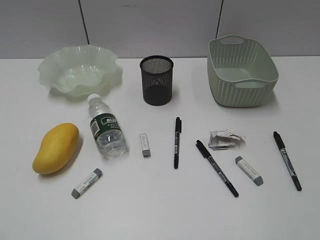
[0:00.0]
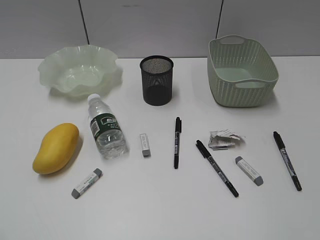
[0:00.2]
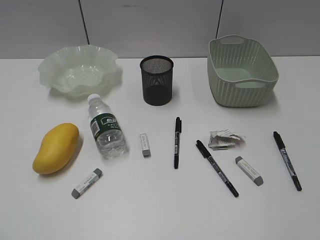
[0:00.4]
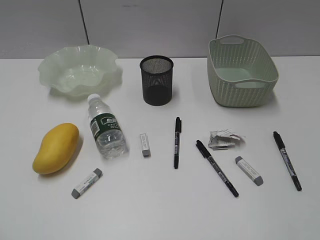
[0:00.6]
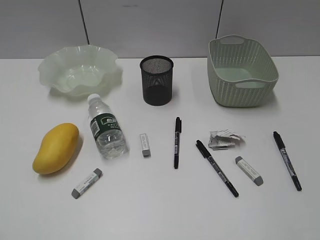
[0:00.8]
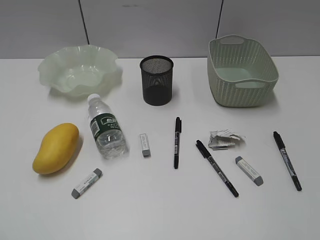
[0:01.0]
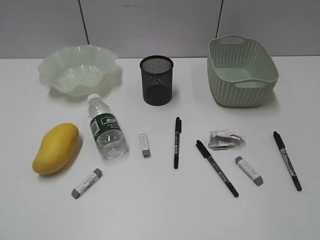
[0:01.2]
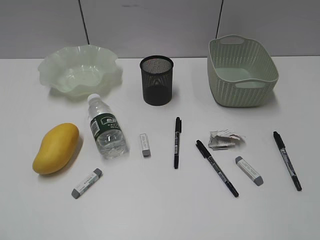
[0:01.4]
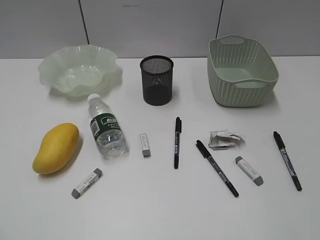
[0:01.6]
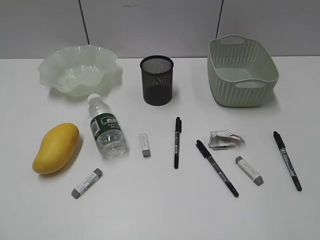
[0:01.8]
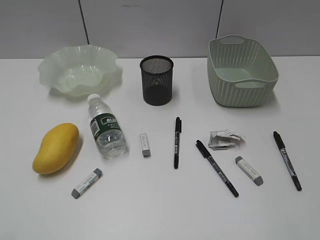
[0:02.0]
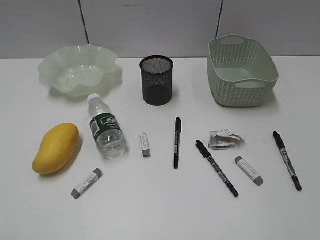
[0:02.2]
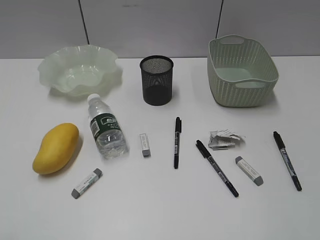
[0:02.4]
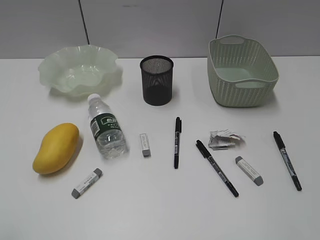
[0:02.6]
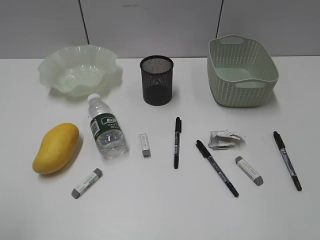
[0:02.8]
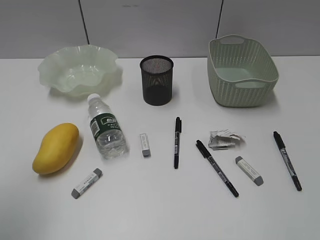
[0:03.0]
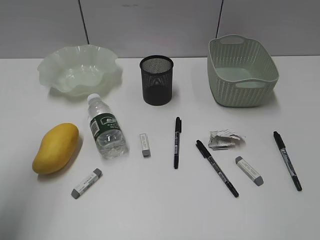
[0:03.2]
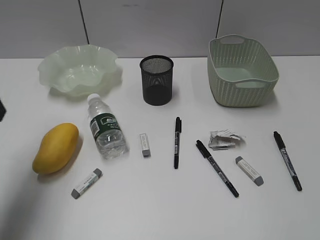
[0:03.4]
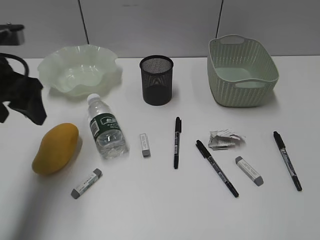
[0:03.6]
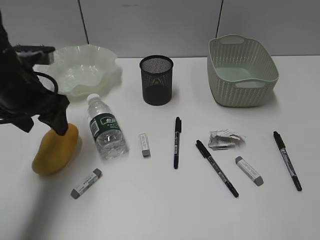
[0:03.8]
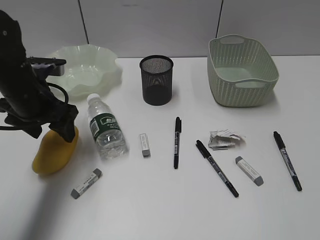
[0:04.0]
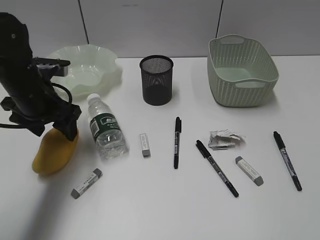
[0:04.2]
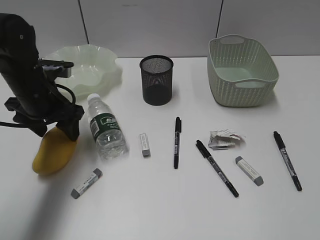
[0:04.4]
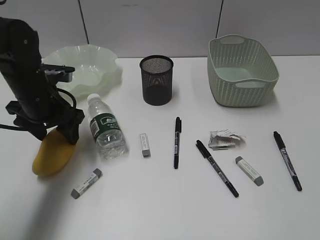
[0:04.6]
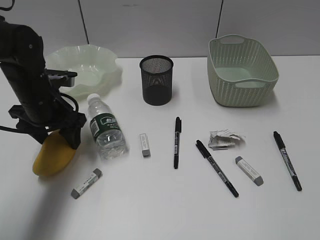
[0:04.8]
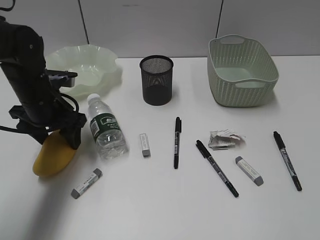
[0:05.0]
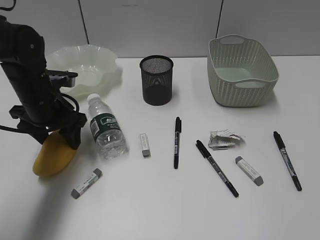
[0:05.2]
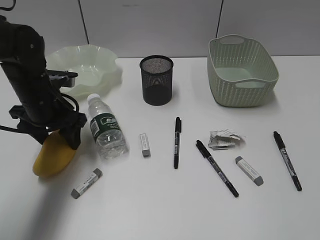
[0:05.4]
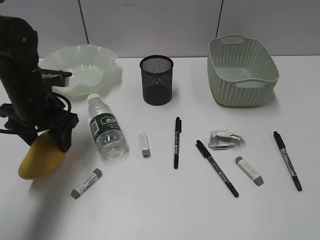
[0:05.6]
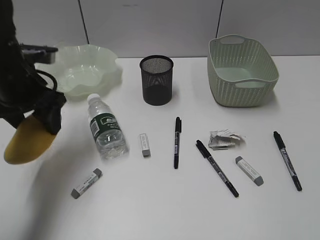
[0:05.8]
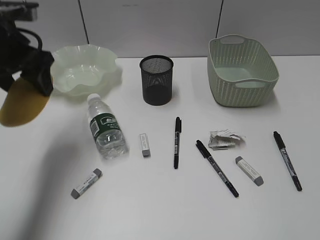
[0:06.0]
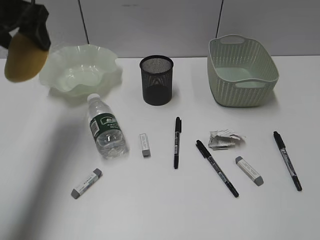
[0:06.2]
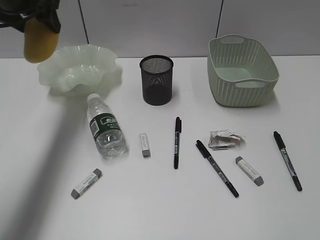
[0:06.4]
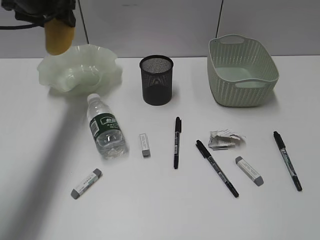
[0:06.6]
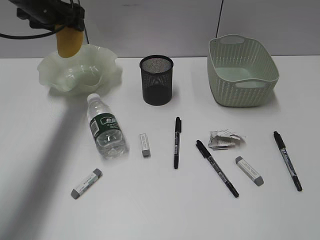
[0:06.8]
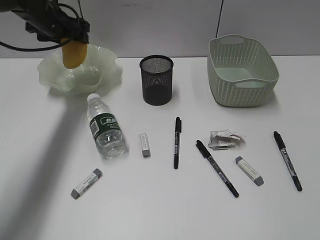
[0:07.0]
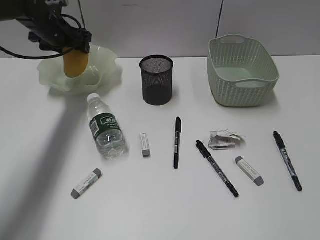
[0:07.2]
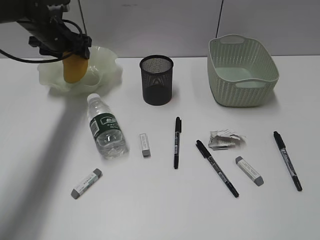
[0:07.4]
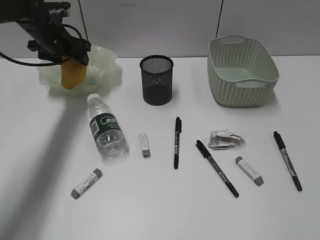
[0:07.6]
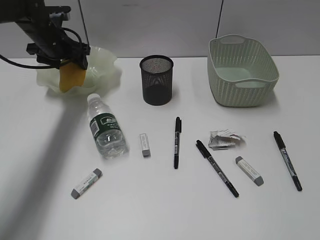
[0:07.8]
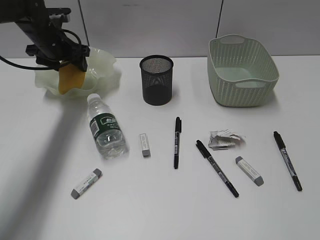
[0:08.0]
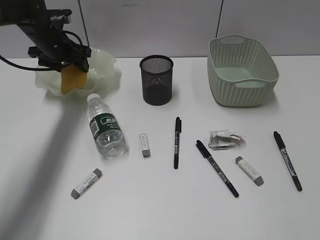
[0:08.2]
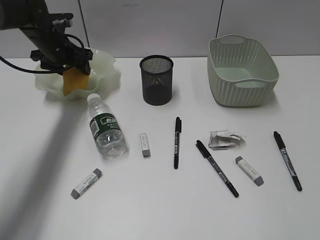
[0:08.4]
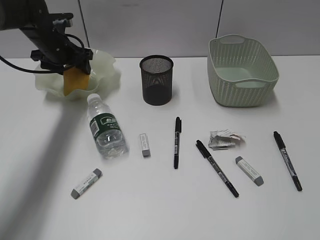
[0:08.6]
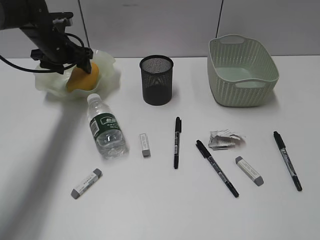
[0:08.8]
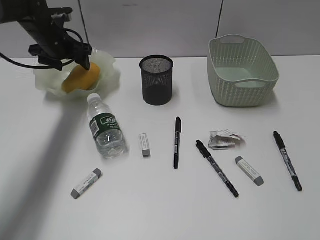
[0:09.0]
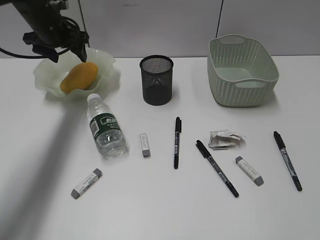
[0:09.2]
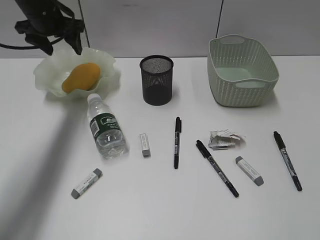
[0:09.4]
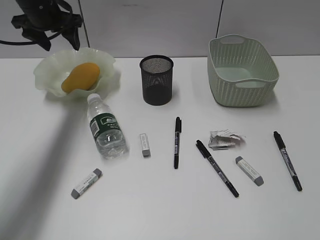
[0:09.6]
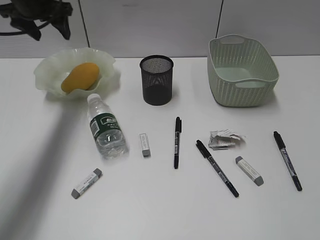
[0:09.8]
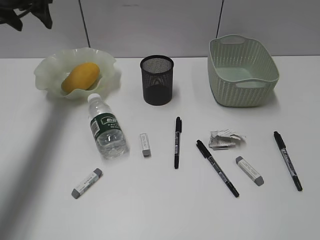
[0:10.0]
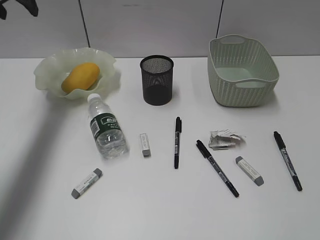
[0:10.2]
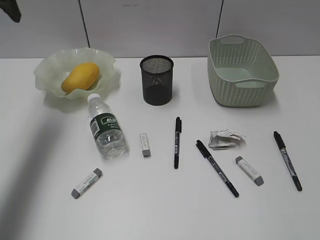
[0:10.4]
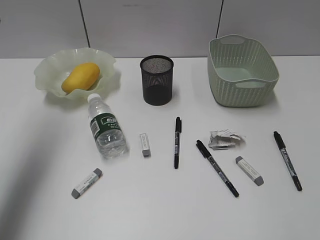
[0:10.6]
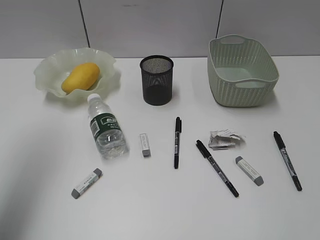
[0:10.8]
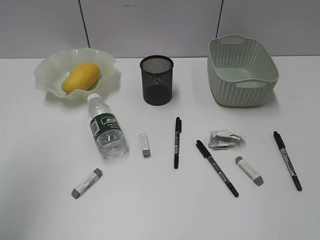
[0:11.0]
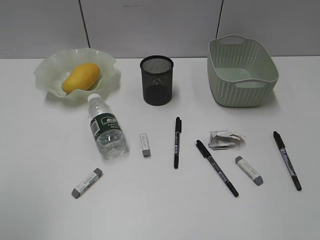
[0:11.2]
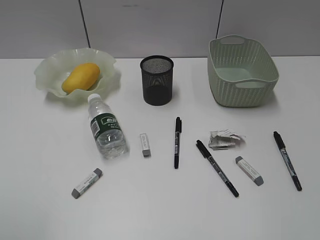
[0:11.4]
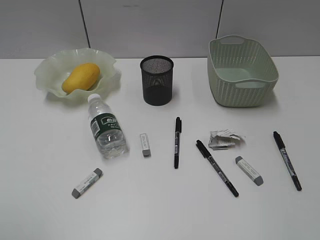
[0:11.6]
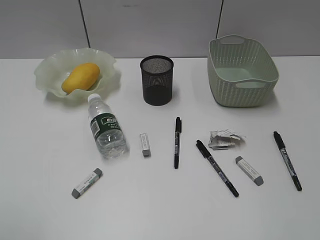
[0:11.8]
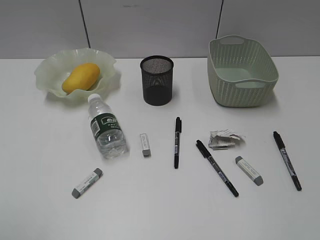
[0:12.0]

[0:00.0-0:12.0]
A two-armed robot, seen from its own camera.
Step, 0:03.4 to 0:05.2: Grasp the mango with left gripper.
Step, 0:05.4 to 0:09.2: Place the mango in the plate with left gripper.
0:01.6 to 0:03.0: The left gripper shifts roughly 10 cm forward, and opens its fingers.
0:03.0 to 0:04.4: The left gripper moves forward, downward and to the right, about 30 cm.
0:04.4 to 0:06.0: The left gripper moves upward, roughly 10 cm.
0:06.0 to 0:07.6: The left gripper shifts roughly 20 cm forward and downward.
0:07.6 to 0:09.0: There are only small adjustments of the grippers.
0:09.0 to 0:10.4: The left gripper moves upward and backward, some 20 cm.
0:10.4 to 0:12.0: The left gripper is displaced backward by some 40 cm.

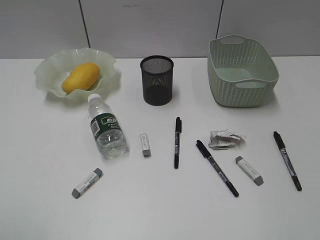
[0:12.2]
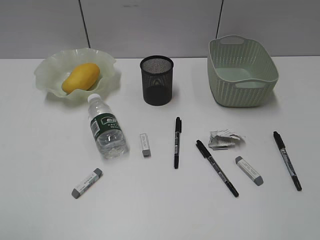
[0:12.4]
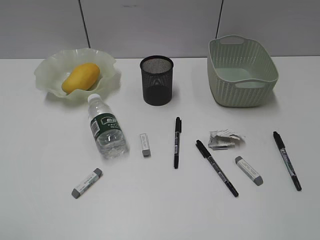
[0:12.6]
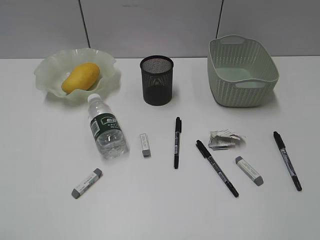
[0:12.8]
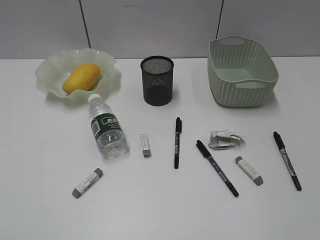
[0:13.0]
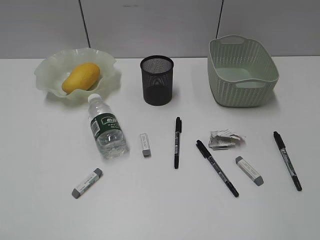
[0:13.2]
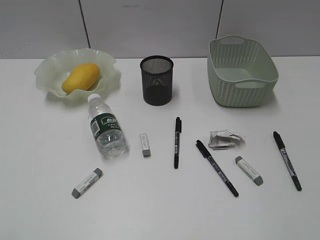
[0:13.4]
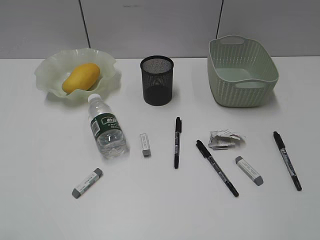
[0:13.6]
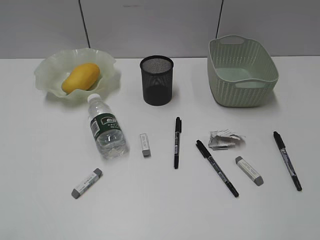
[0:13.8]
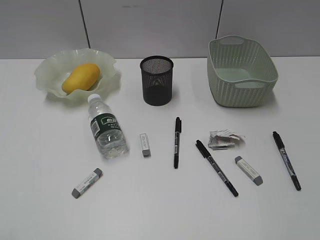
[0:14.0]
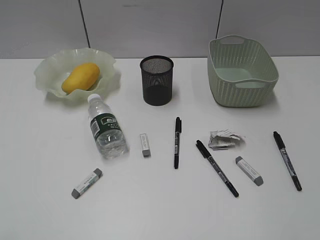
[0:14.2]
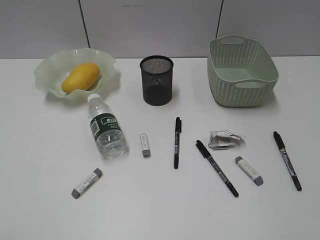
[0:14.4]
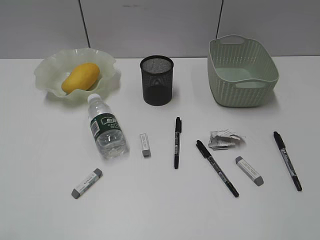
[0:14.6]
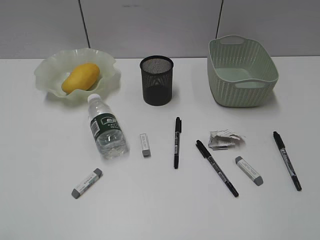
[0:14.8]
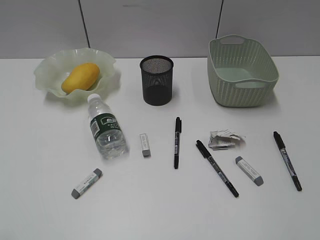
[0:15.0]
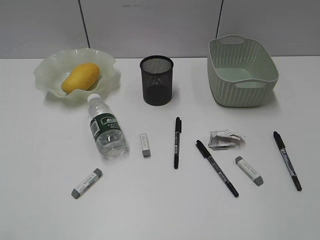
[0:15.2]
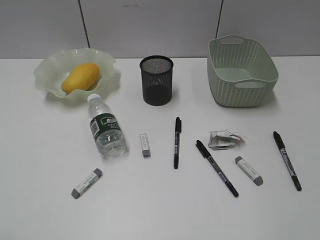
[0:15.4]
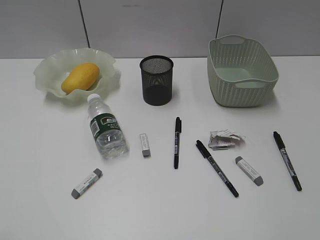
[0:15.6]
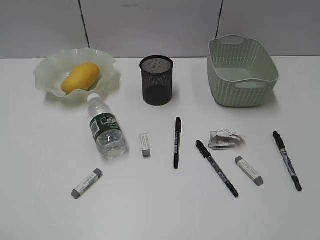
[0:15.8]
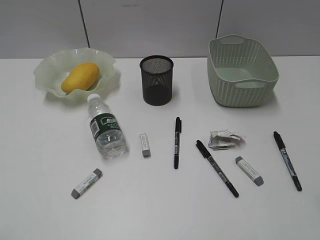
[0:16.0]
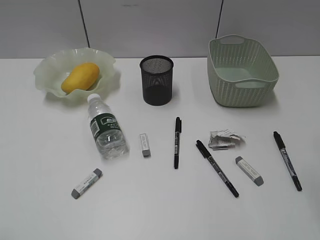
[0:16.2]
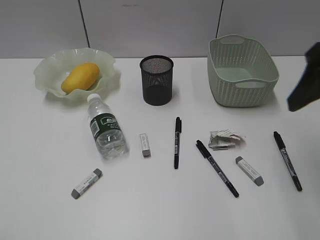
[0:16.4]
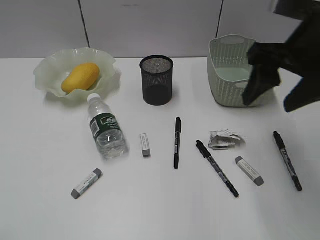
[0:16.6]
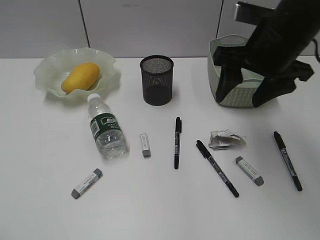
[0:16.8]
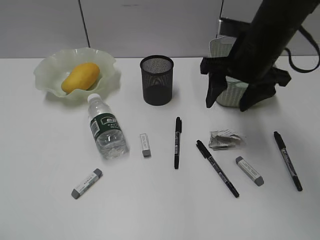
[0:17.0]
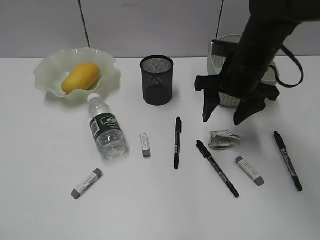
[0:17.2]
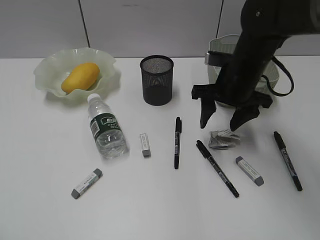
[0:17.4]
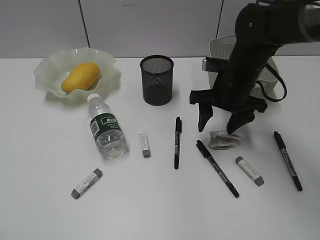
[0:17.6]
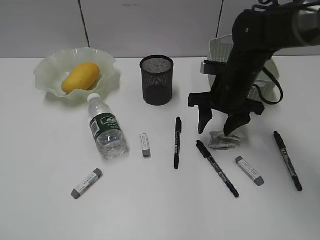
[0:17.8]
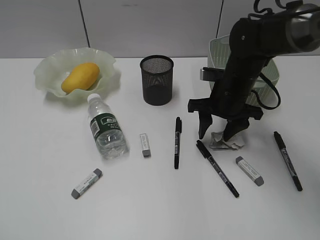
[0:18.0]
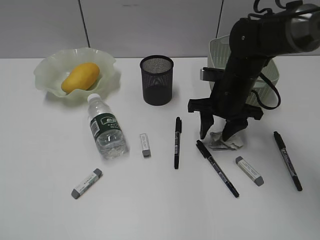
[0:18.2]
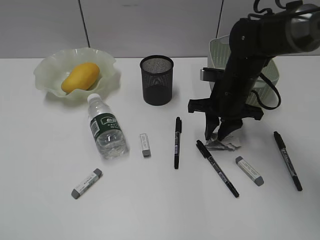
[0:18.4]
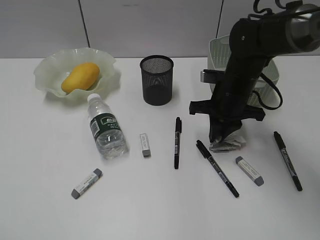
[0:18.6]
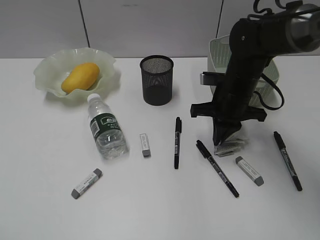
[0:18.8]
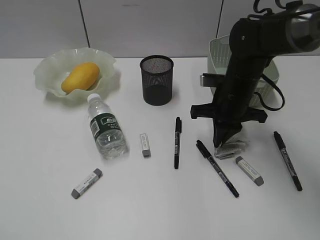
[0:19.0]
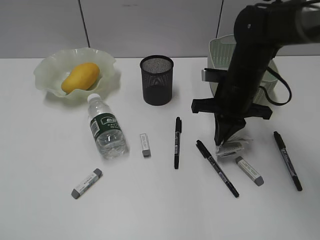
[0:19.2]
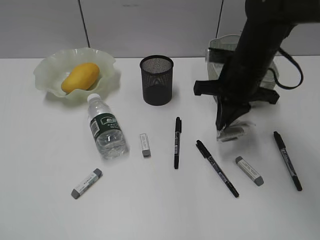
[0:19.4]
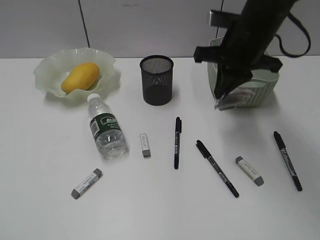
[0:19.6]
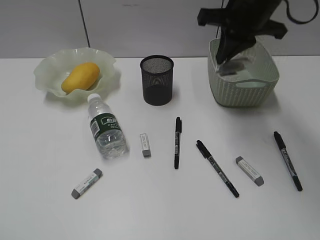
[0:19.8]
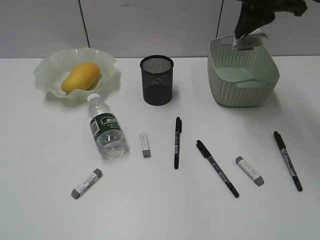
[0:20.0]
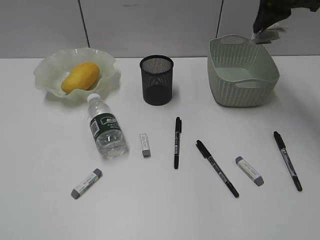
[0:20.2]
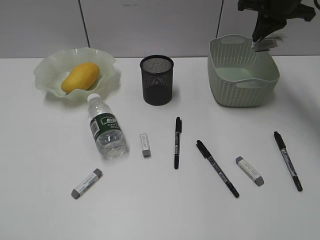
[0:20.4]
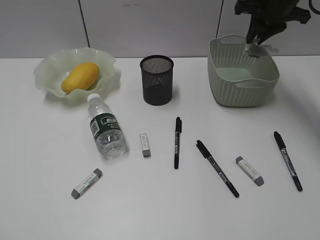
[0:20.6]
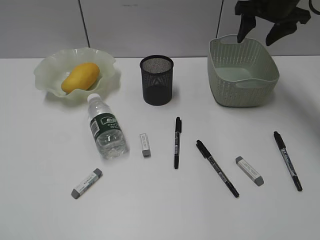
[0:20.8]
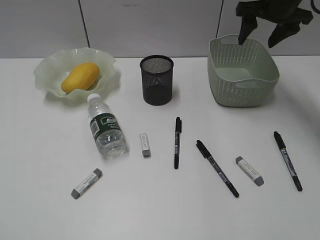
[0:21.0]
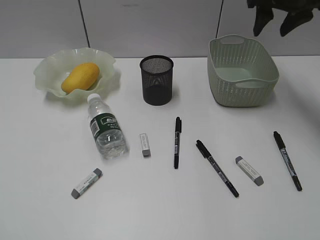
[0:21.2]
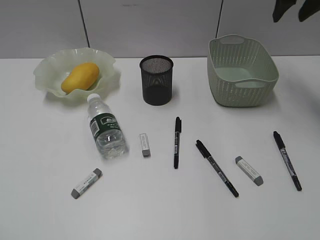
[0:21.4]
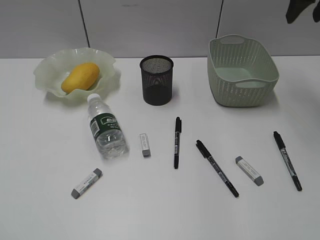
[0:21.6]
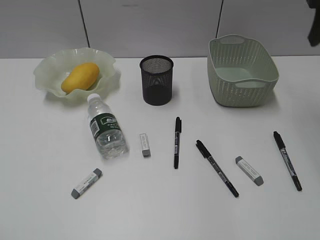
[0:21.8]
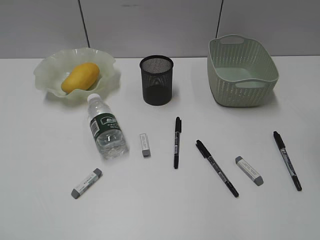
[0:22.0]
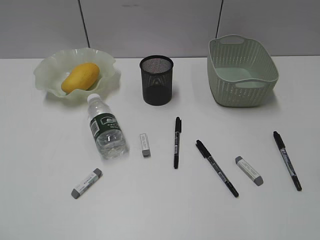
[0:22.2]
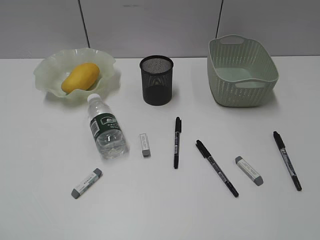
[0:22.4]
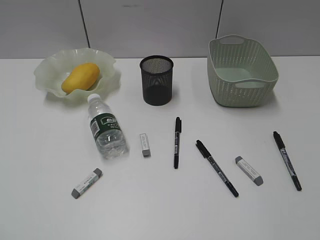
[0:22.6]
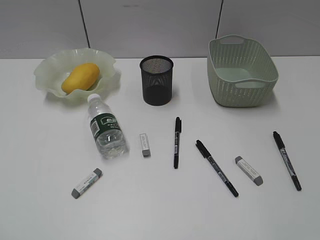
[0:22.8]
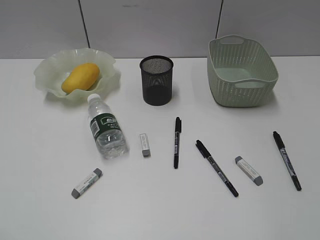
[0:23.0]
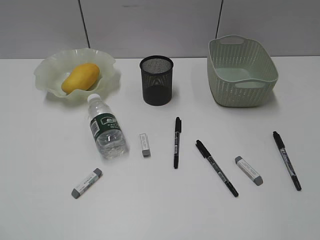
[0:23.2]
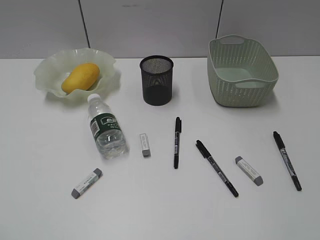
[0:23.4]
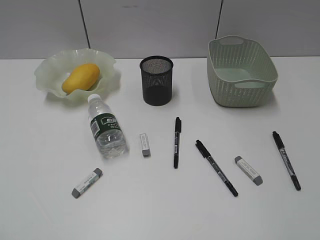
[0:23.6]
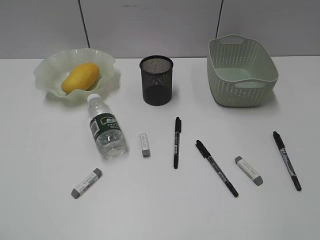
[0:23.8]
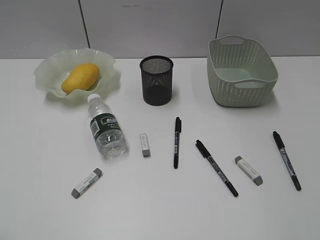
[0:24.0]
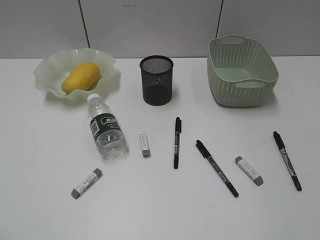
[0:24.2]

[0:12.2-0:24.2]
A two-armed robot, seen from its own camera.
Step, 0:12.2 to 0:18.8: Grasp the waste paper with right gripper.
Step, 0:19.0 to 0:20.8: Place the waste paper in the basket with right gripper.
0:13.8 to 0:15.2: Neither gripper changes place.
0:15.2 to 0:16.6: The right gripper travels forward and to the left by approximately 30 cm, and opens its fingers.
0:16.6 to 0:18.2: The right gripper heads downward and forward, covering some 20 cm.
0:18.2 to 0:19.8: The right gripper heads upward, covering some 15 cm, and closes.
0:19.8 to 0:21.2: The right gripper goes some 15 cm to the right and forward, and opens up.
0:21.2 to 0:22.6: The right gripper heads backward, covering about 40 cm.
